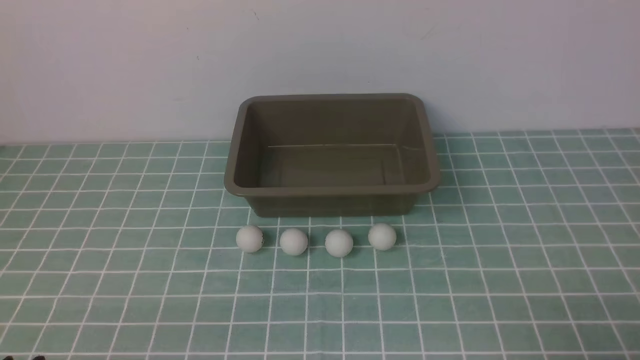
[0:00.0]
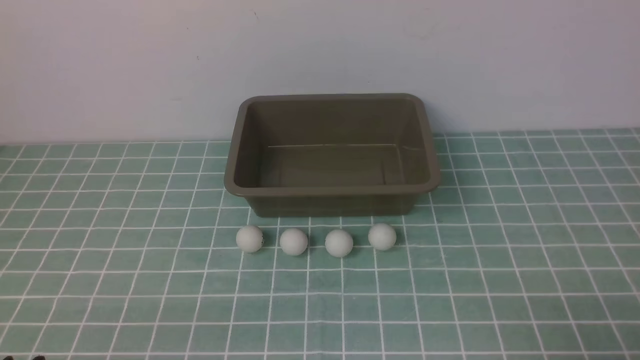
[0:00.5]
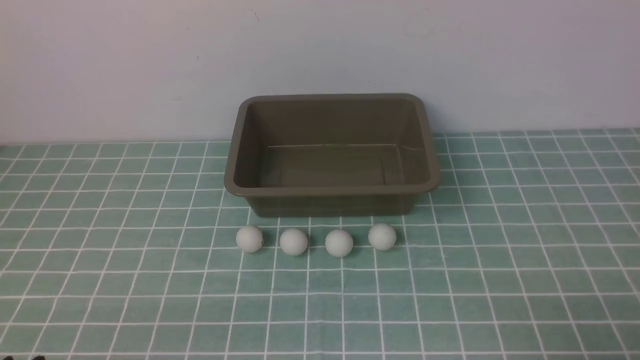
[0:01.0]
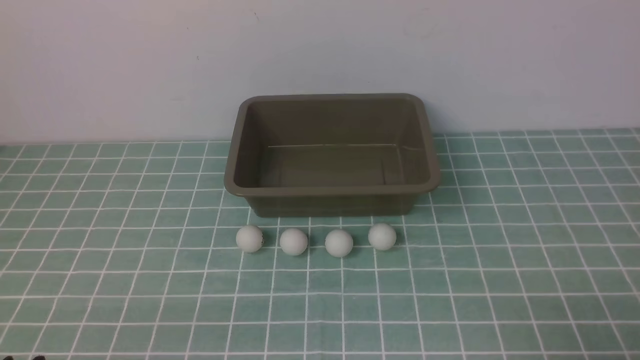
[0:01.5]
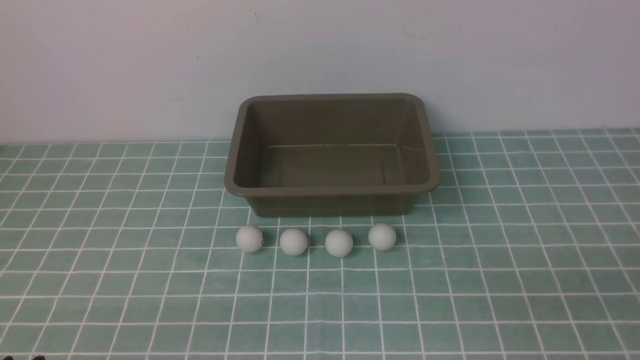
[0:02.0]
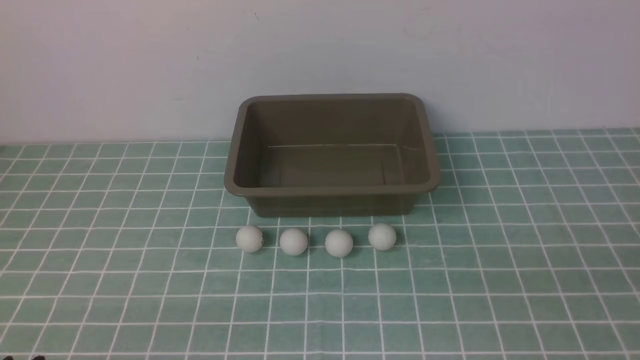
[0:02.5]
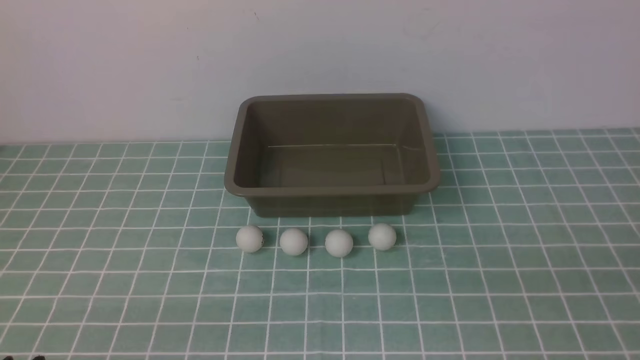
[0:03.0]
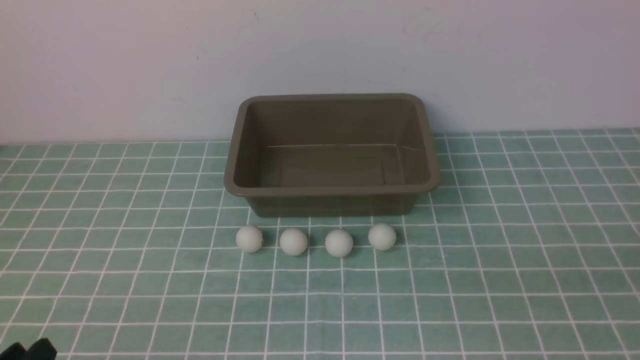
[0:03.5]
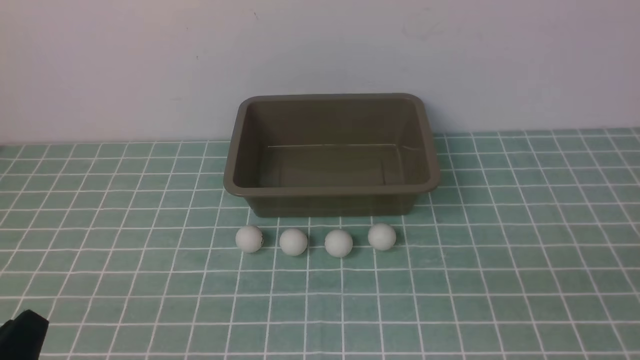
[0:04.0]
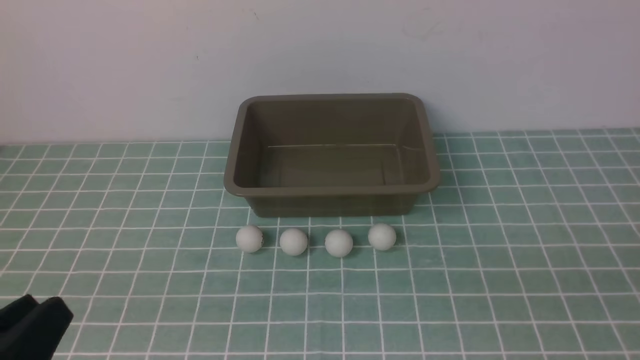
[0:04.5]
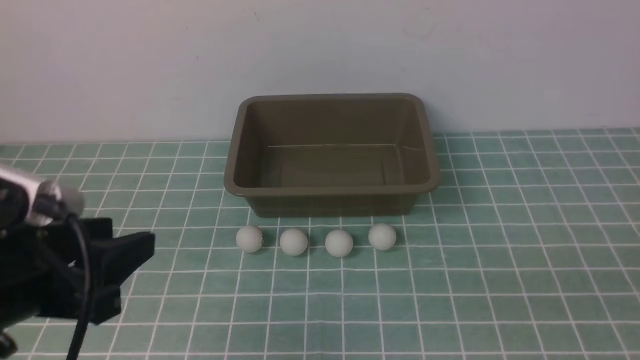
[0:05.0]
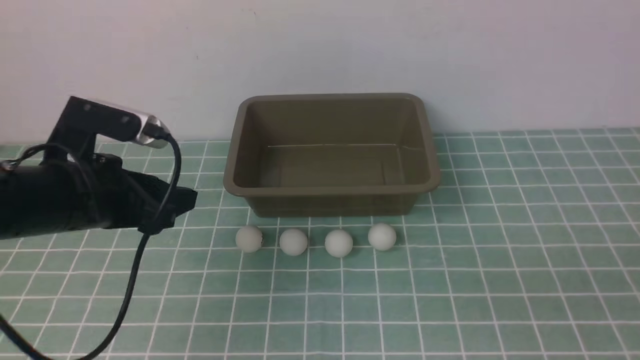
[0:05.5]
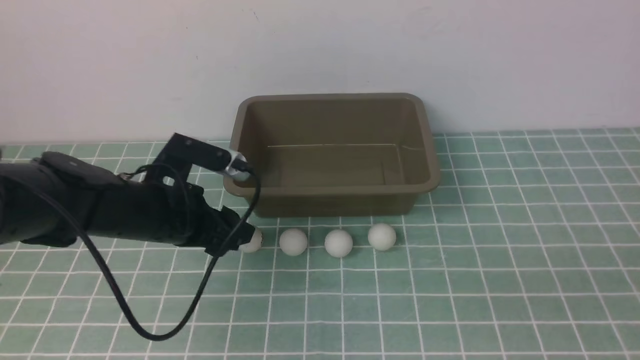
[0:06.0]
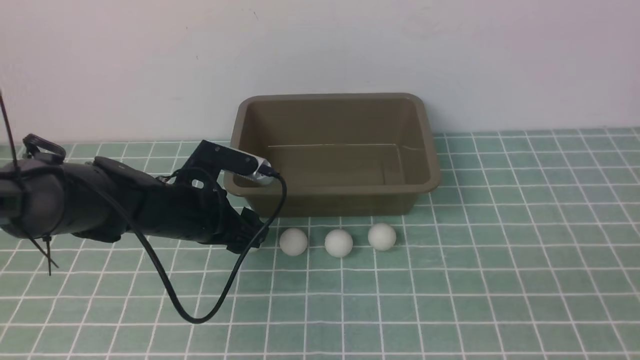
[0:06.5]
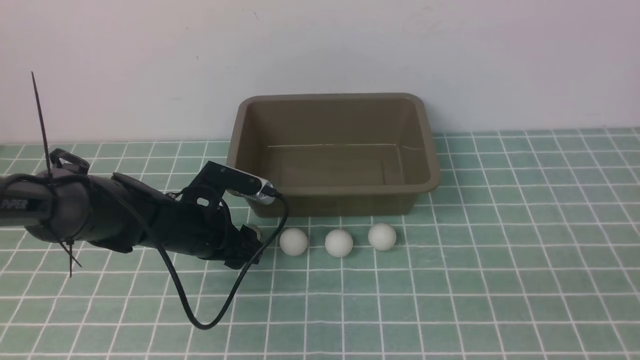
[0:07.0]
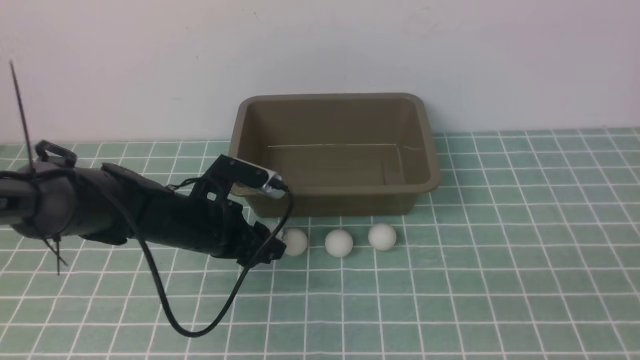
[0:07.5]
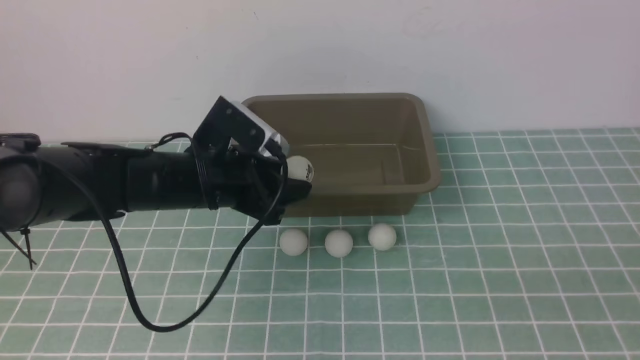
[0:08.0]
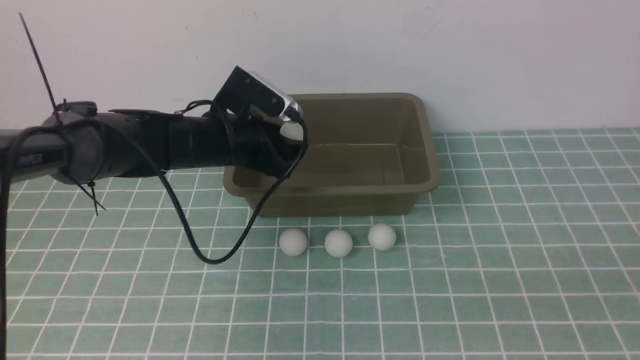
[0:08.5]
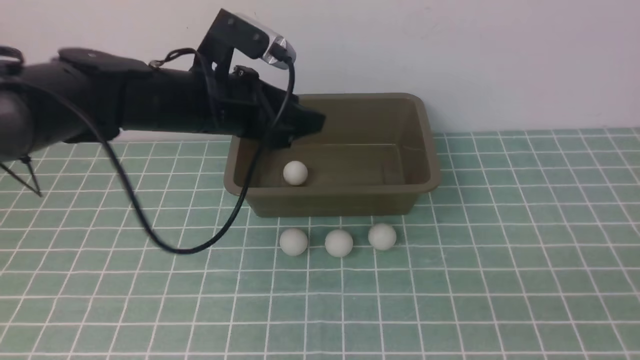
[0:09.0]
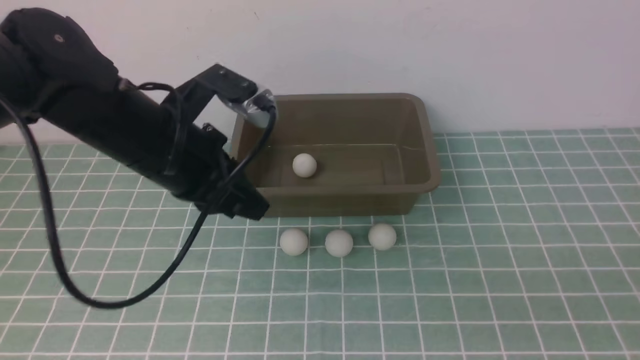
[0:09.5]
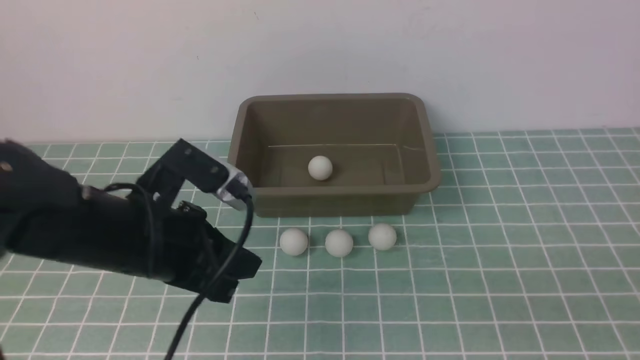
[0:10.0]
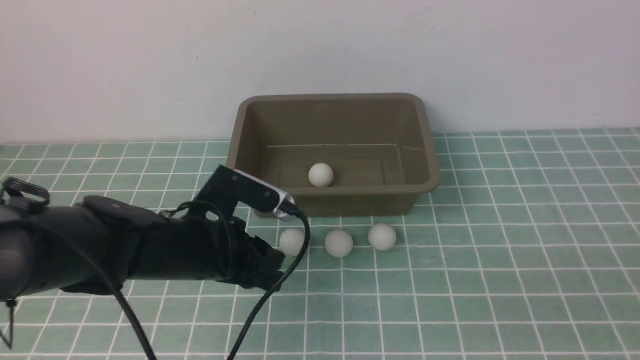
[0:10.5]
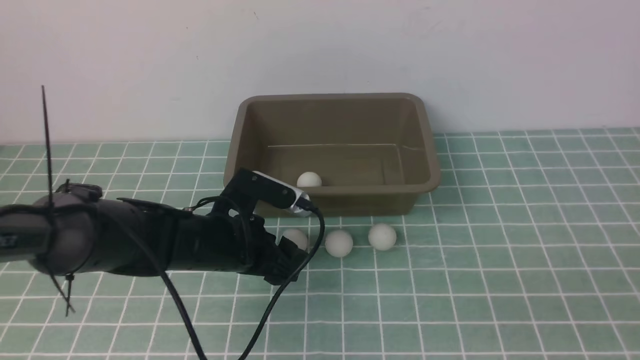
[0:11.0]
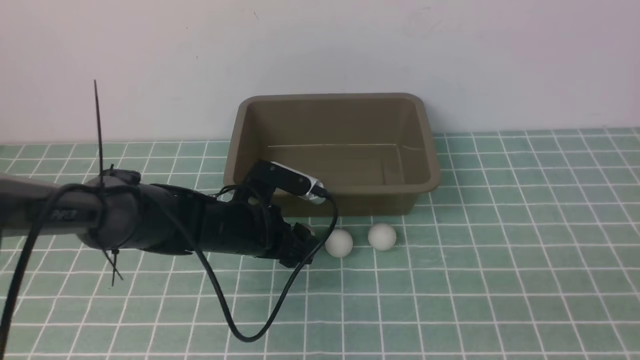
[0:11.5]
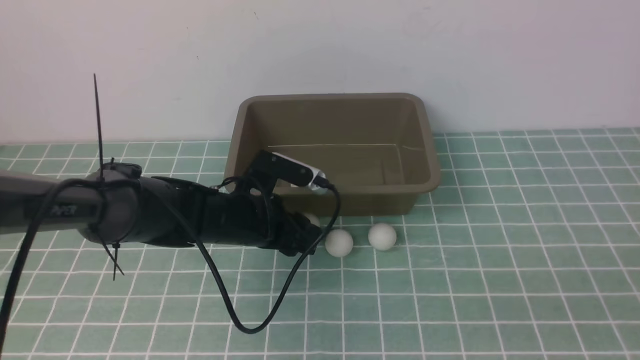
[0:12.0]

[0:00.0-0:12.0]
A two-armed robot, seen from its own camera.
Step, 0:00.0 to 0:07.5: use the left arm to clamp the table tennis ball closest to it.
Step, 0:08.0 to 0:08.5: use the left arm to put the table tennis ball into the box.
0:04.0 to 0:06.0: The left gripper shifts approximately 25 cm forward, and opens up.
0:06.0 to 0:08.0: The left gripper moves some 5 cm, and closes its fingers.
0:08.0 to 0:10.0: The left gripper shifts approximately 10 cm backward, and closes up.
0:10.0 to 0:12.0: The left gripper is displaced forward and to the right by approximately 10 cm, and opens up.

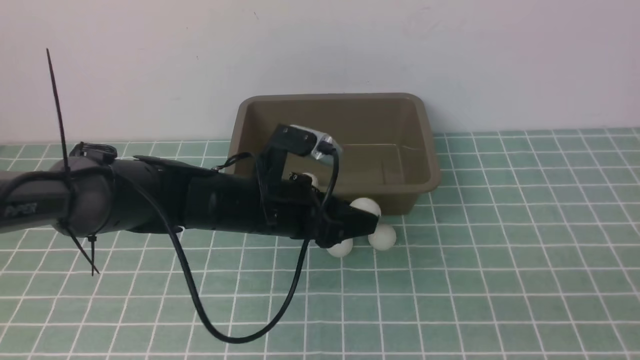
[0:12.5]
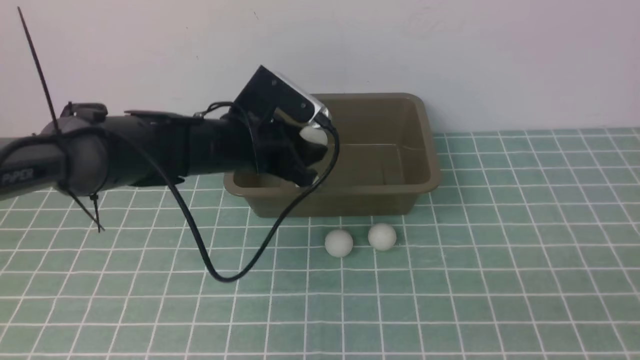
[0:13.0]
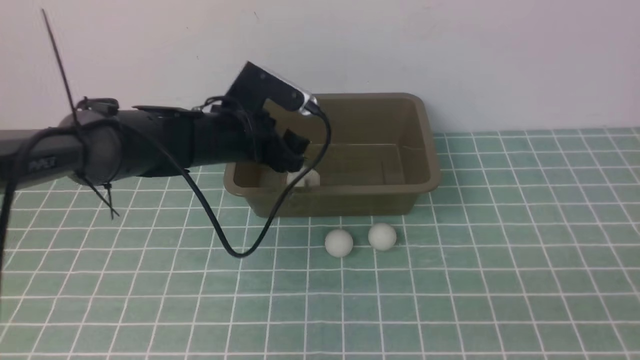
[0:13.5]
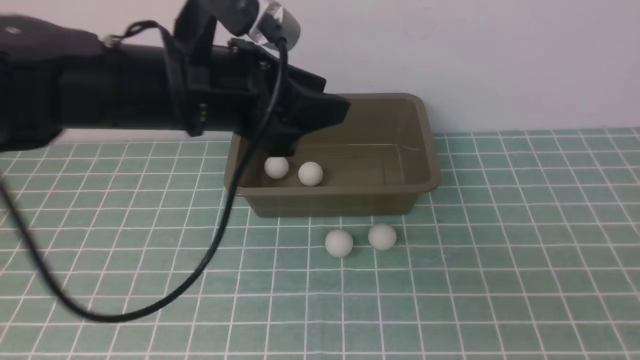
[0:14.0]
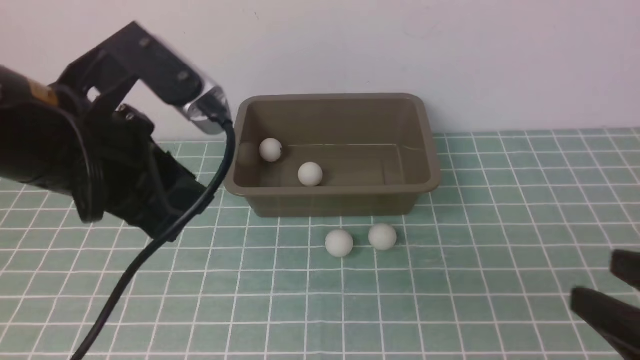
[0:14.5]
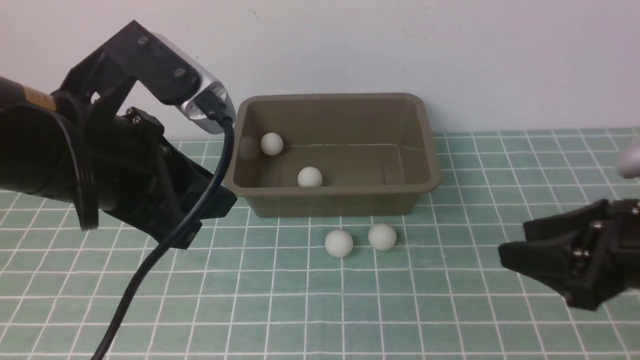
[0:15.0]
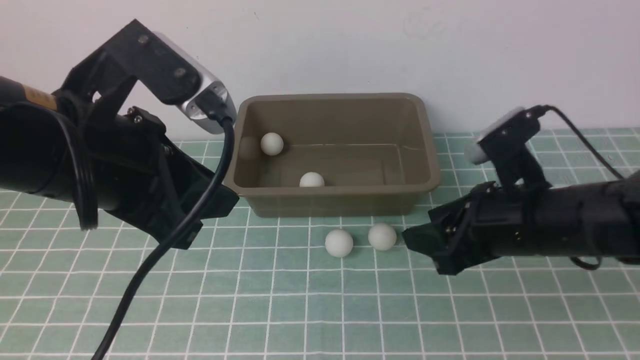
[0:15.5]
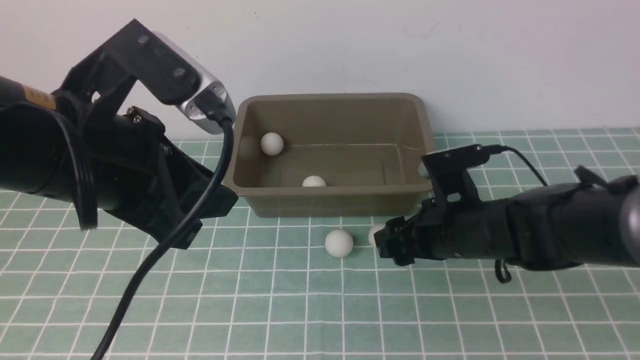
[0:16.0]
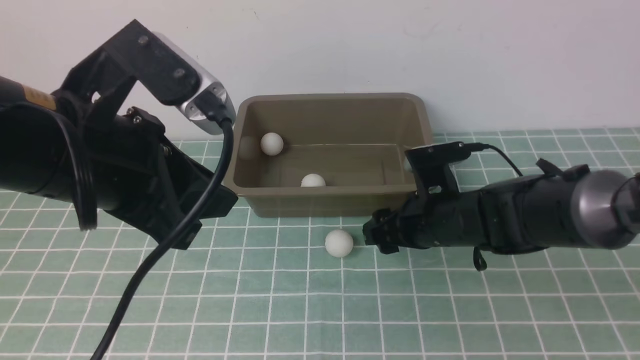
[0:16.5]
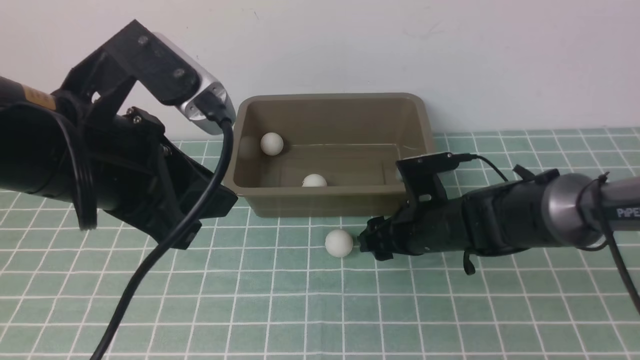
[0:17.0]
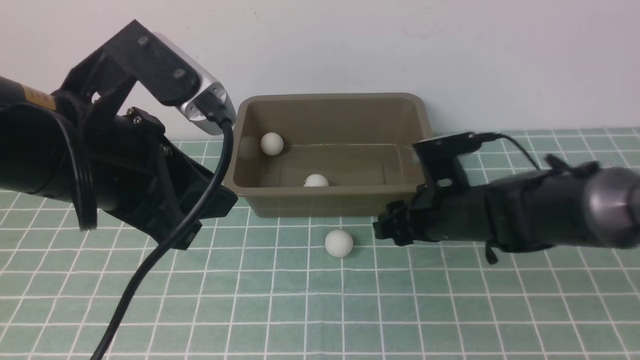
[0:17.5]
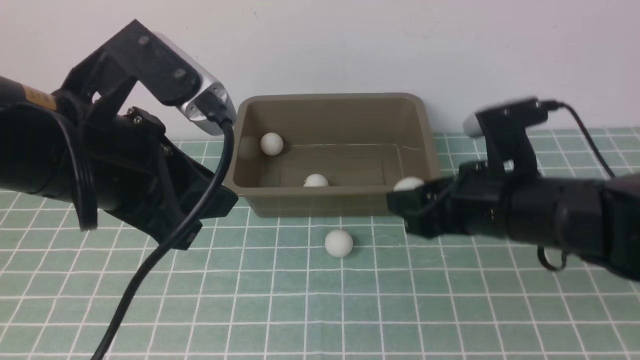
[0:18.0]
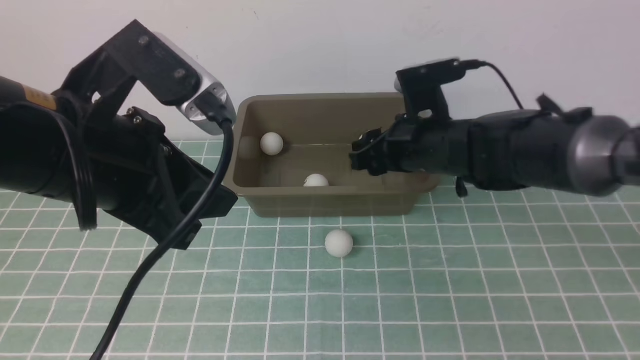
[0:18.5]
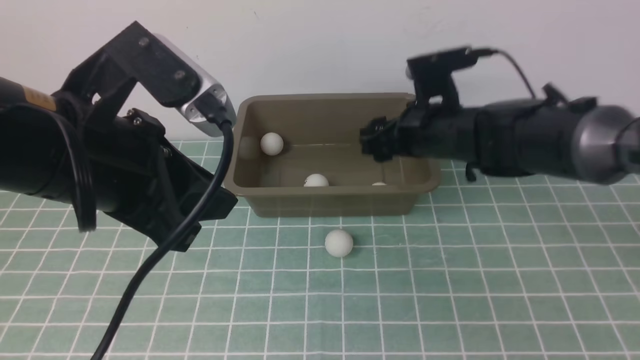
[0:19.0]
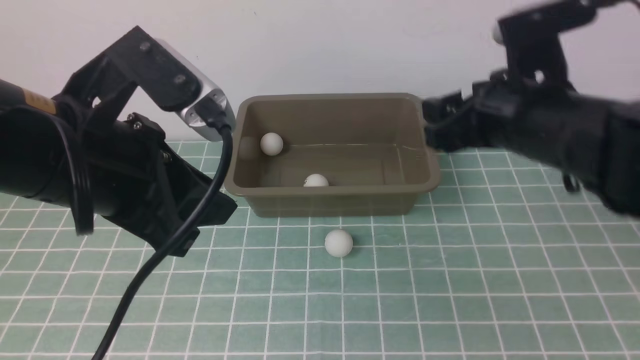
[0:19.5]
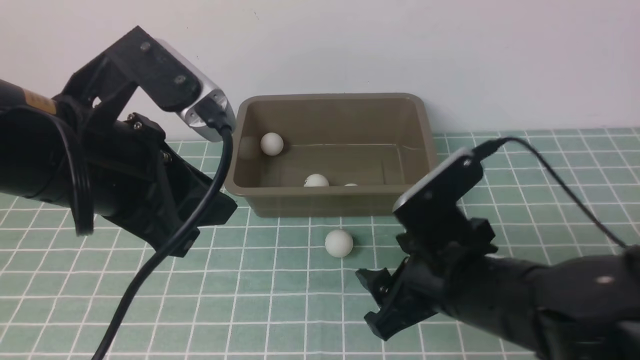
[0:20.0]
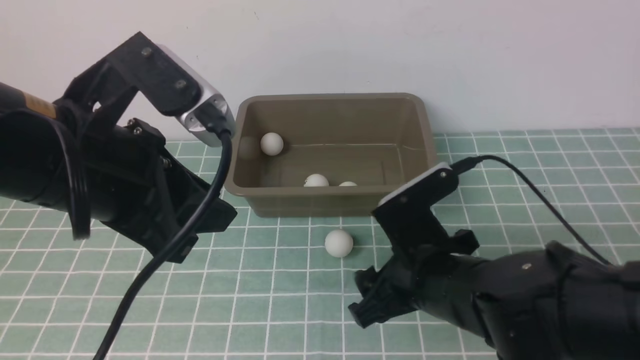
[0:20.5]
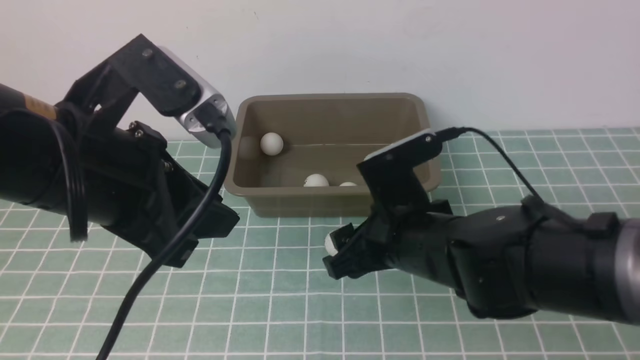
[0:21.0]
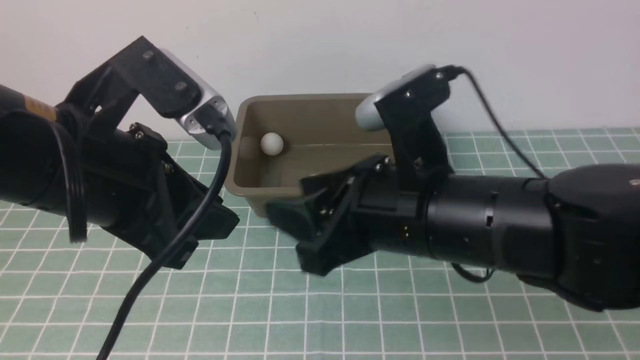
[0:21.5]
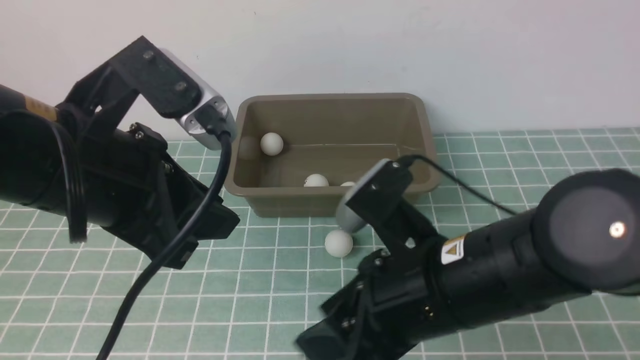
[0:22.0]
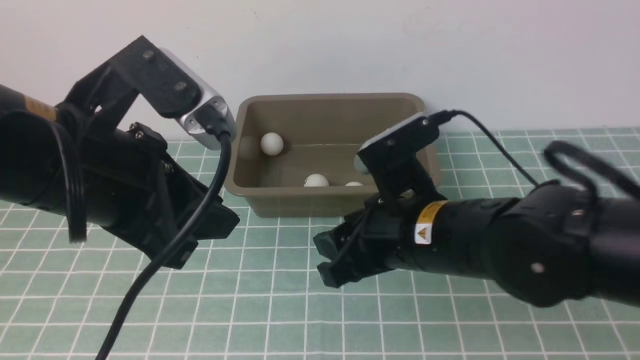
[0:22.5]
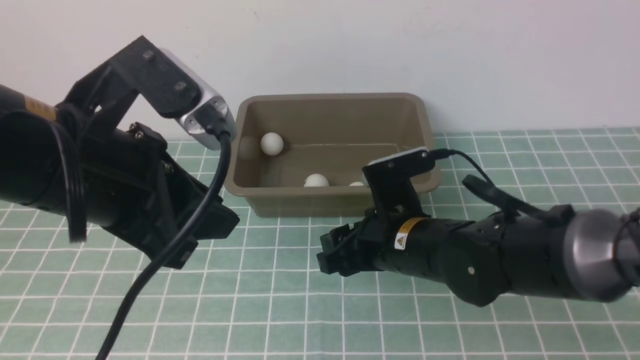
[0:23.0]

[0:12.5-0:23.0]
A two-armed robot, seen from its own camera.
Step, 0:12.5 to 0:13.5: use the left arm to put the table tennis ball into the box.
Step, 0:14.0 to 0:17.5: use the right arm to clamp the table tennis ball closest to it.
Step, 0:18.0 to 0:18.5: use the right arm to put the table tennis ball into the box.
0:12.5 to 0:14.5: The right gripper heads forward, covering some 20 cm, while the left gripper moves backward and upward, roughly 25 cm, and closes up.
0:14.5 to 0:16.5: The right gripper travels forward, downward and to the left by about 25 cm.
0:16.5 to 0:19.0: The right gripper moves up and down over approximately 15 cm, changing direction 2 times.
0:19.0 to 0:21.0: The right gripper moves backward and to the left, roughly 15 cm, and closes its fingers.
0:21.0 to 0:23.0: The right gripper travels downward and forward by approximately 15 cm.
